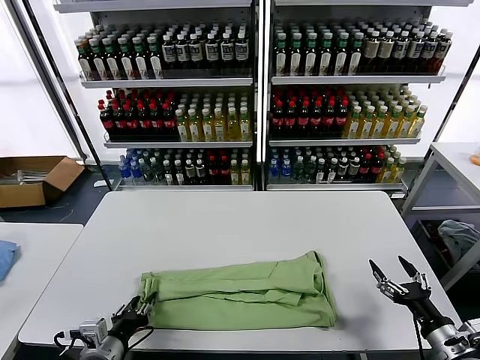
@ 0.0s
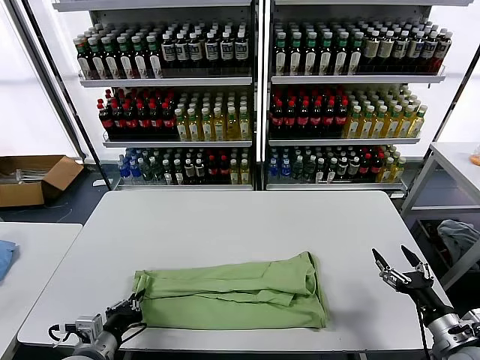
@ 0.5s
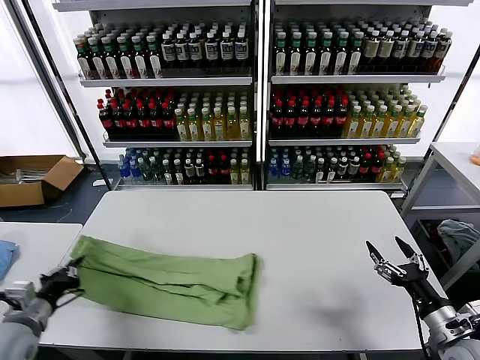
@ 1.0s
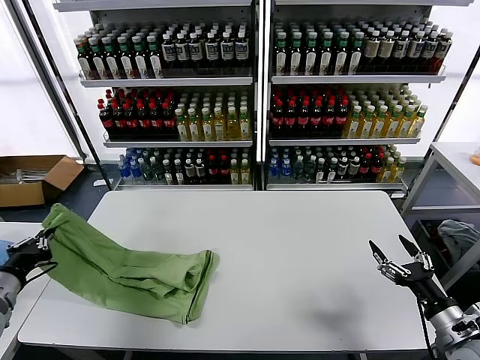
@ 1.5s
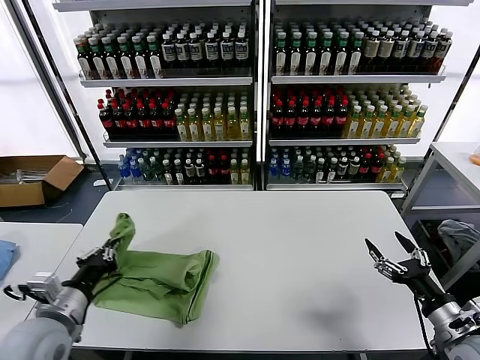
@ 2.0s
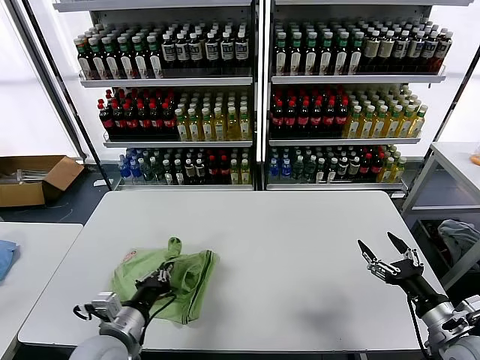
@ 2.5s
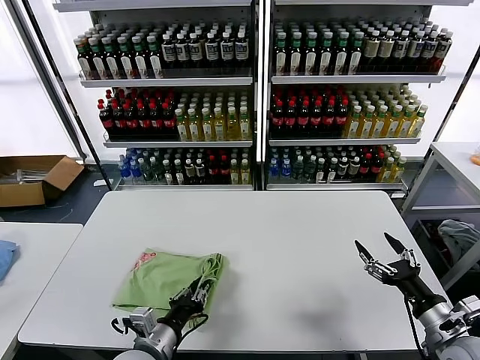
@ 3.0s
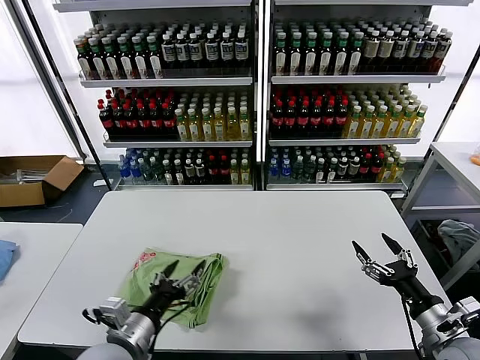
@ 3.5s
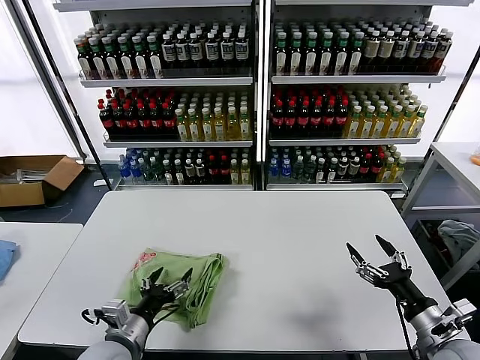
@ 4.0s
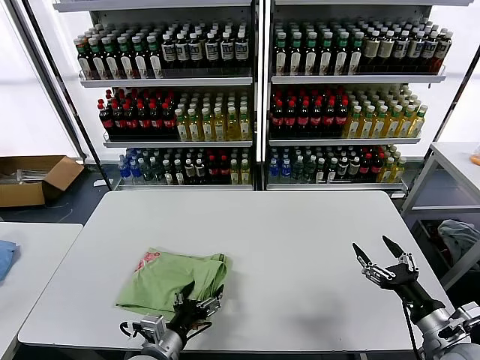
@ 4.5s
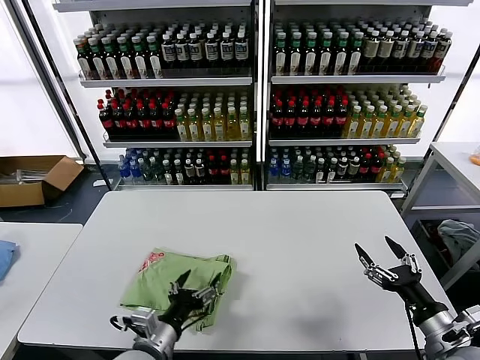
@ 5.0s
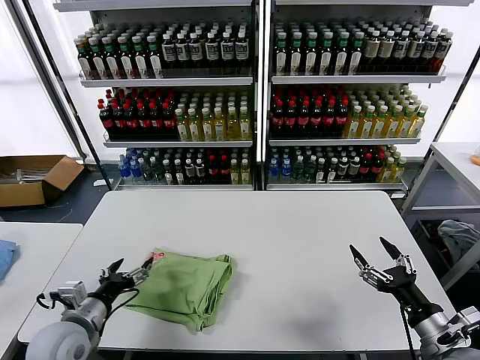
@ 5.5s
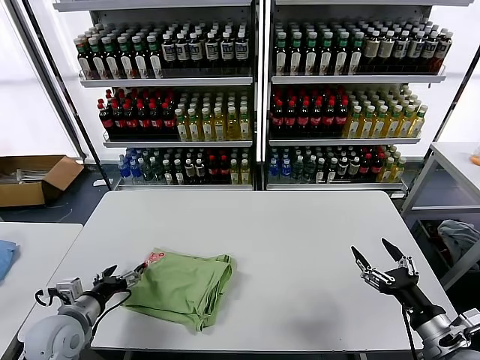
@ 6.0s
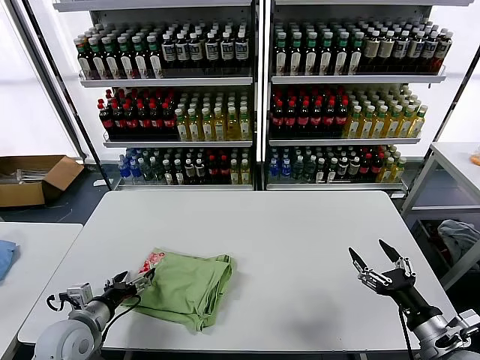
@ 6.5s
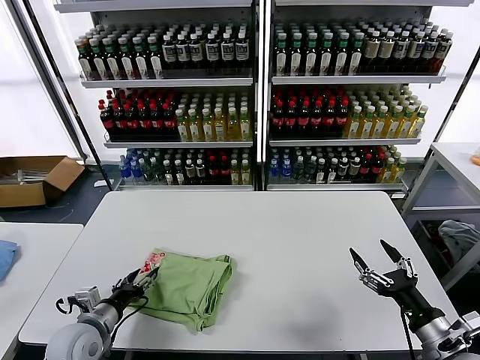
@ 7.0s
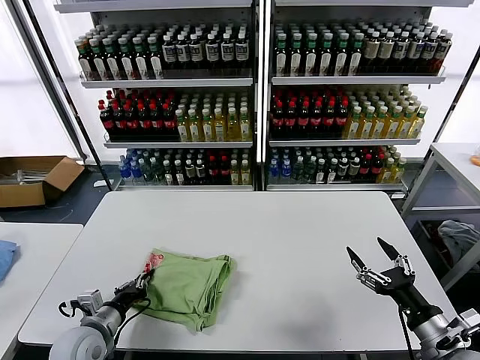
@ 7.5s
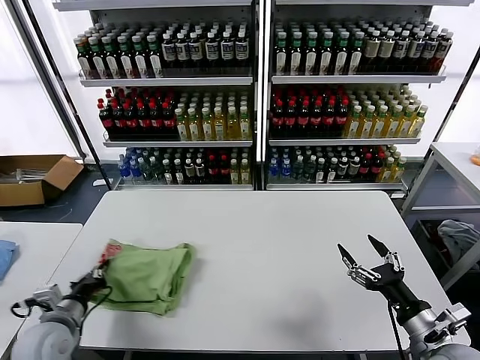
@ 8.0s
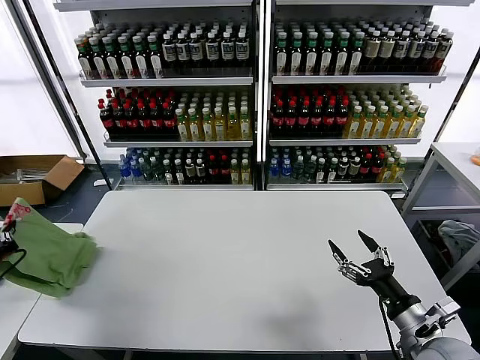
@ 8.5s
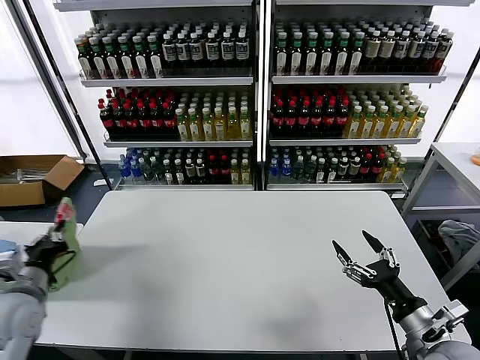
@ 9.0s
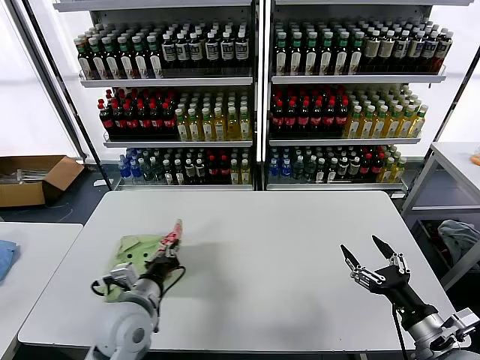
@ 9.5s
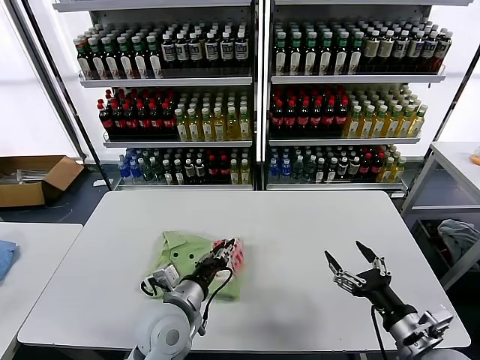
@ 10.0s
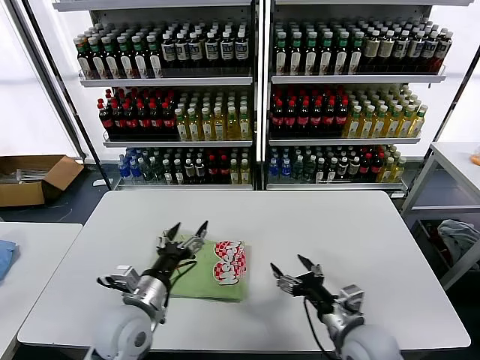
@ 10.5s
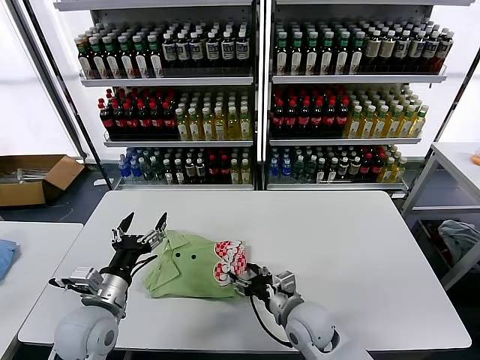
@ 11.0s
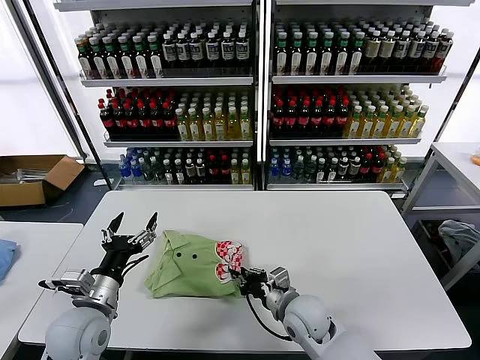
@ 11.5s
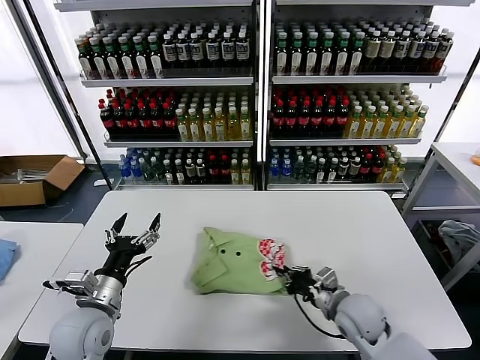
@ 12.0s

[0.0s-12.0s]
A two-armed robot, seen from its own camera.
Task of the whole recording: fold and organize the clothes.
Step, 0.5s to 3.0s: use the left gripper to drag the left edge of the fabric to the left and folds it over the right edge.
Step, 3.5s to 10.0s: Flip the folded clothes over with left gripper.
0.0s to 2.0s: The left gripper is displaced upward by some 10 cm, travels to the left and back again, about 15 cm each way, and closes its fingers; the right gripper moves some 5 cm.
2.0s to 4.0s: The left gripper heads to the right and downward, covering some 10 cm, and opens up.
4.0s to 6.0s: The left gripper shifts approximately 10 cm to the left.
6.0s to 8.0s: The left gripper closes its fingers.
8.0s to 10.0s: The left gripper is displaced to the right by some 25 cm.
10.0s to 12.0s: The right gripper travels forward, to the left and downward by about 20 cm, and closes its fingers. Meanwhile the left gripper goes roughly 15 cm to the left, and opens up.

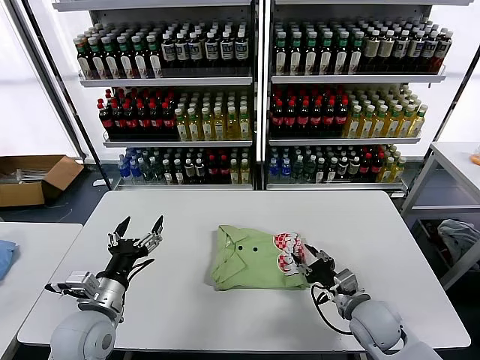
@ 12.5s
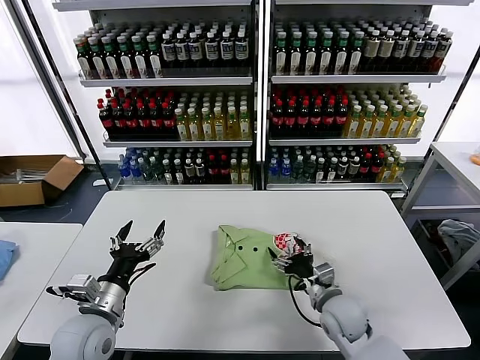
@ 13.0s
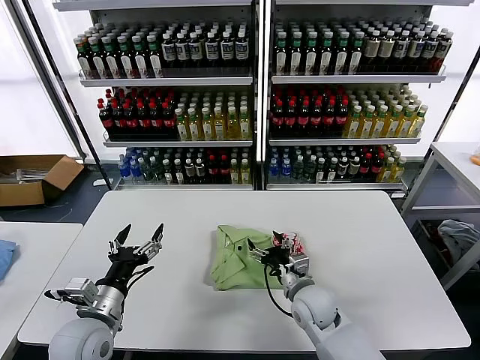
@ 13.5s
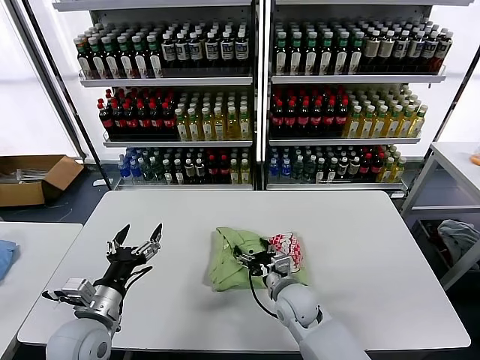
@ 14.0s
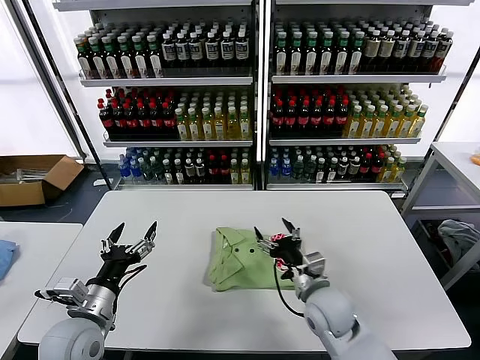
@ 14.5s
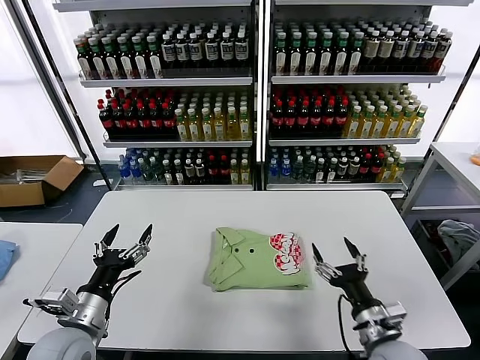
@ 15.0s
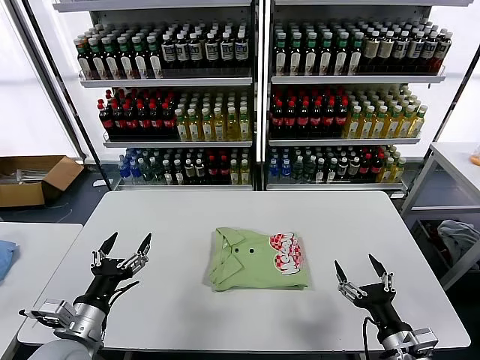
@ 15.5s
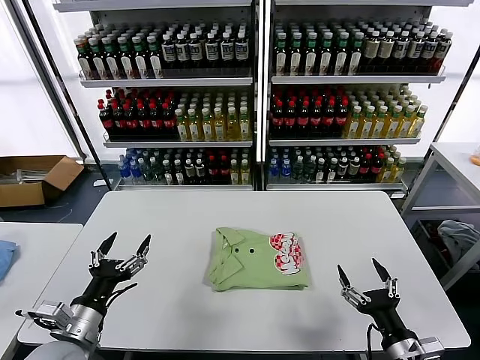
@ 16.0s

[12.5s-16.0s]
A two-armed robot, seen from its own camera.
Task of the whole recording: fold and organize the clothes.
12.5s to 14.5s: The right gripper moves to the left, roughly 10 cm, and opens up.
14.5s to 16.0s: The right gripper moves backward and to the right, some 25 cm.

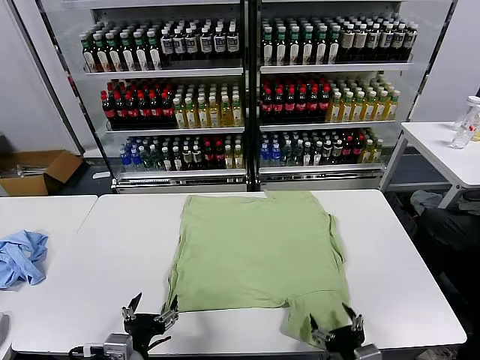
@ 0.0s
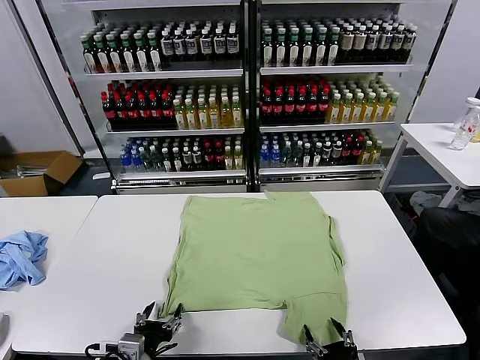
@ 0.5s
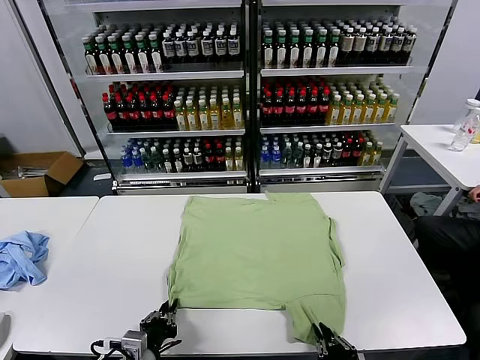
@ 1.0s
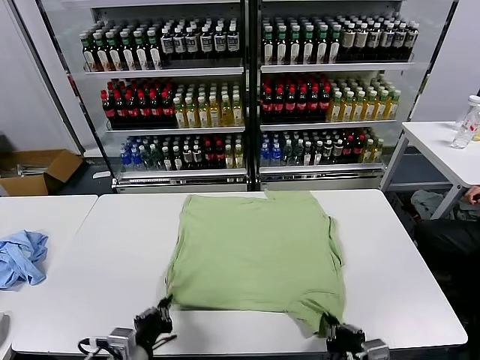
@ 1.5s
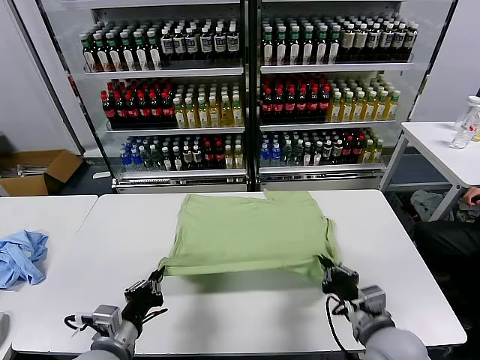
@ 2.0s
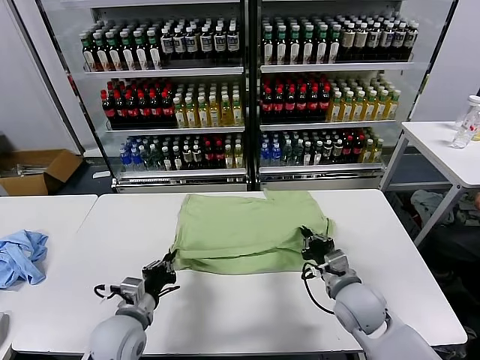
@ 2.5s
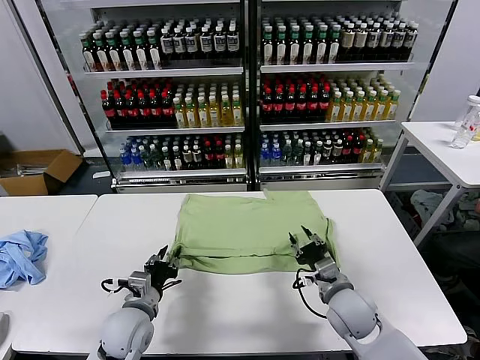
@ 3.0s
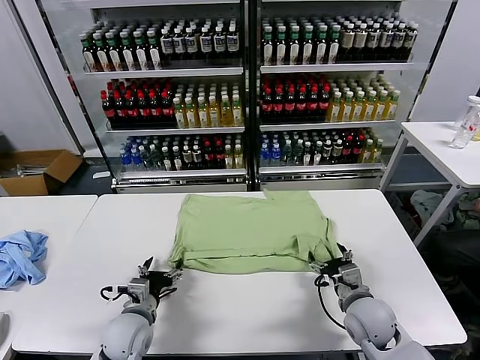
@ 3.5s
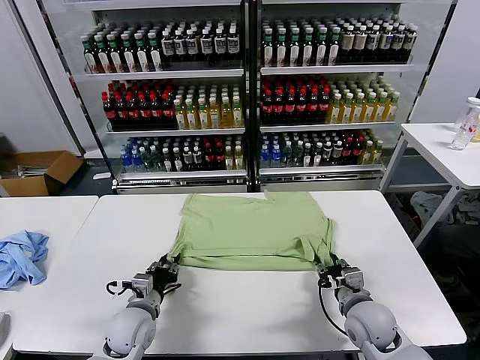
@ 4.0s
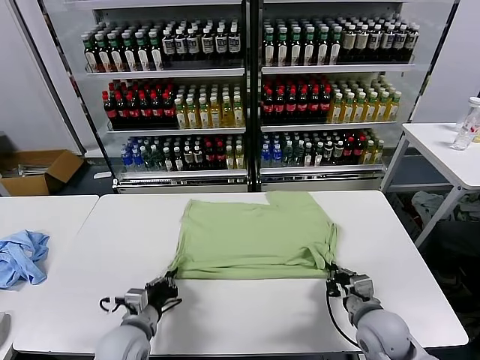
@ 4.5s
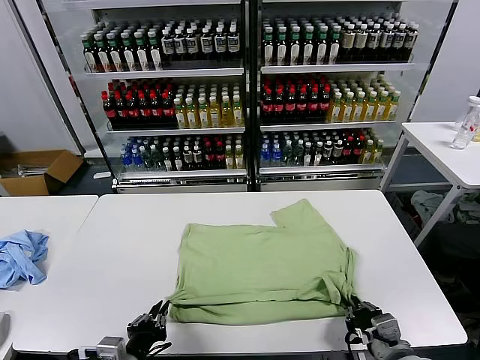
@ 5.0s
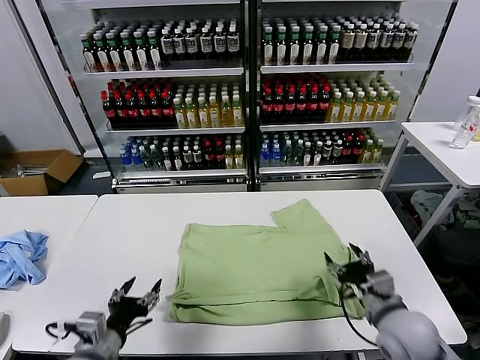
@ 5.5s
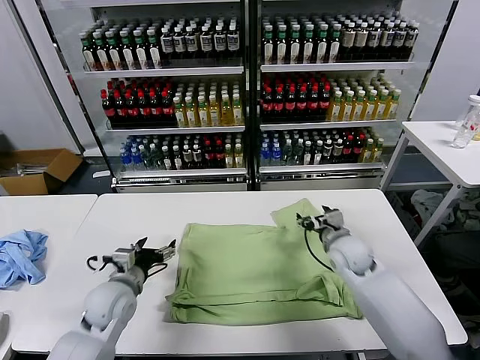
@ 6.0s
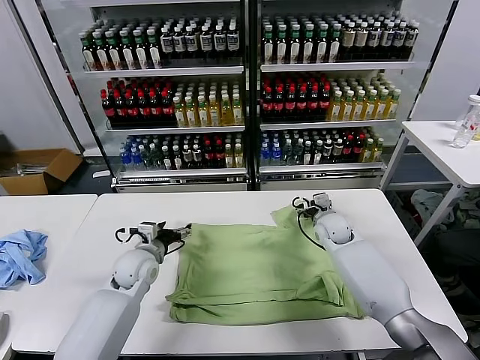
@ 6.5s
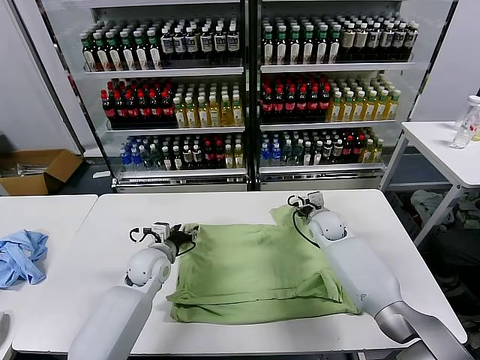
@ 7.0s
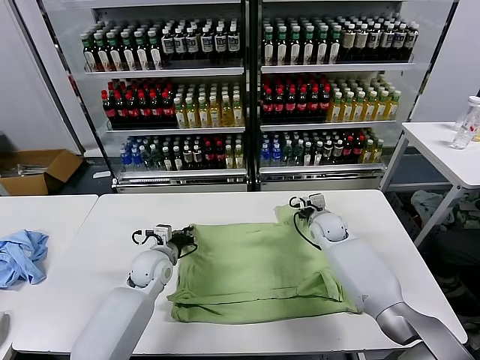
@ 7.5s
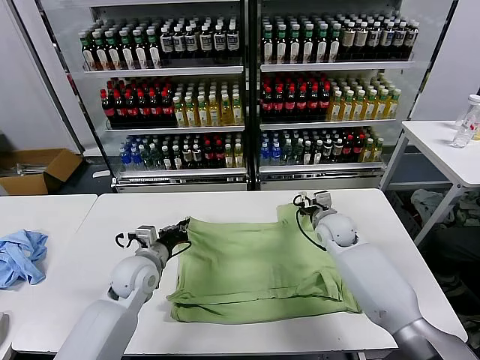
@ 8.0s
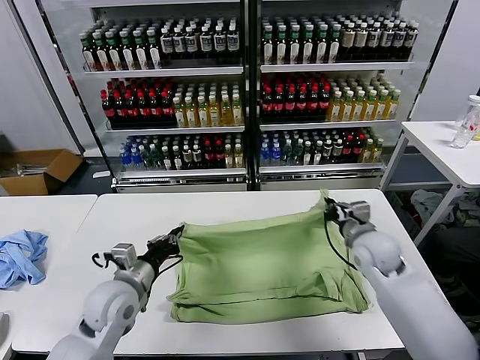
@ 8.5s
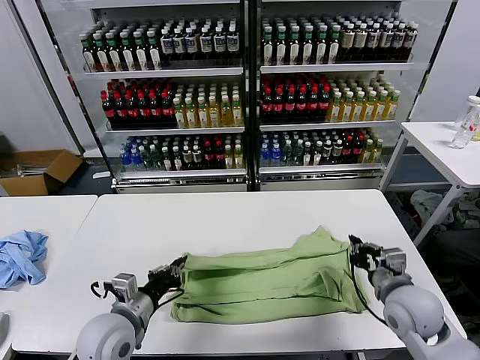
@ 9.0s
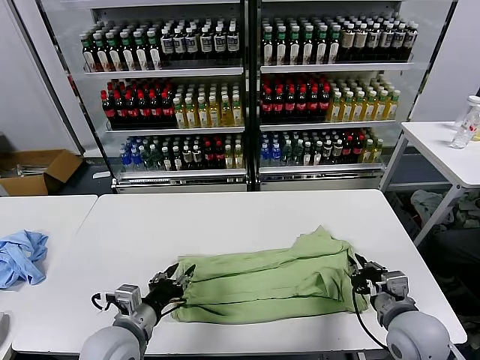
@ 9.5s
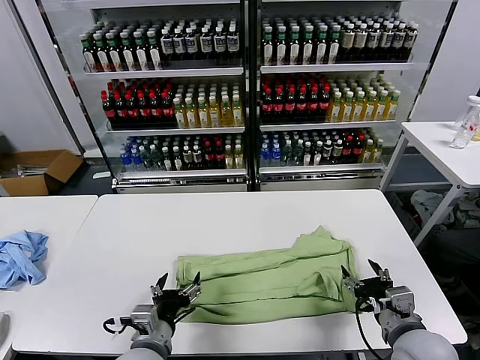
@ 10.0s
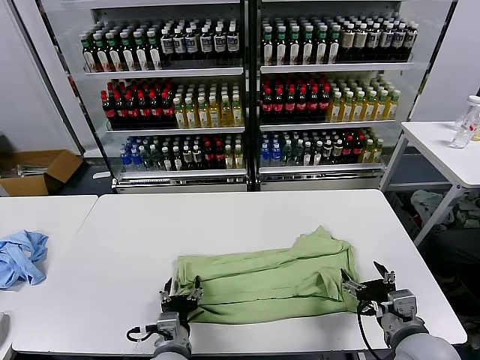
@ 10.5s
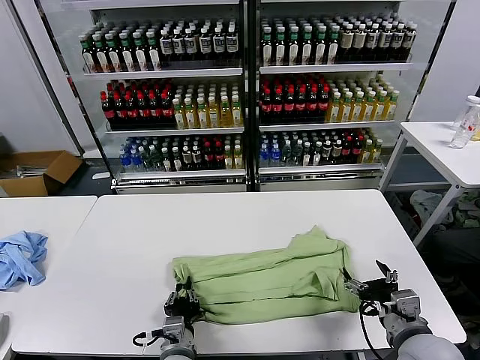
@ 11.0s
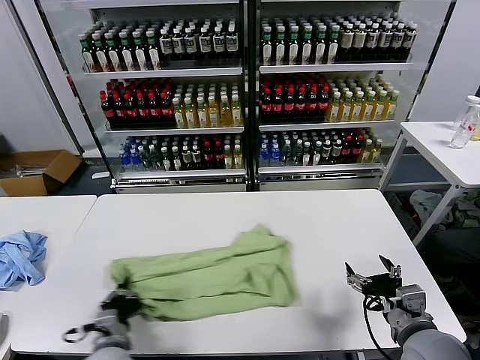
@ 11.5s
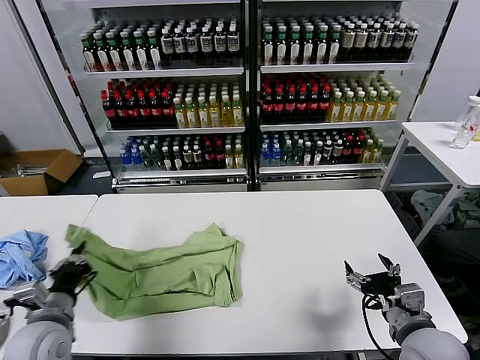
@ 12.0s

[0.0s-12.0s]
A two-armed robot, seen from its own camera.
Task of the whole recording: fold and organize the clothes.
Step, 0.0s to 1.0s: use both grippers simultaneously to clamp the lower edge of the clothing fabric.
Step, 1.5s to 3.0s: use both grippers to drag the lower edge of the fabric forward and fold it over the upper edge.
Step, 3.5s to 5.0s: Drag the clothes downward with both gripper.
Step, 5.5s to 7.5s: use both grippers simultaneously to clamp the upper edge of the clothing fabric.
Step, 8.0s to 9.0s: use both grippers to drag the upper edge of the fabric backward and fold it over the lower edge.
Step, 9.5s to 11.0s: use the left gripper to clamp the left edge of the fabric.
2.0s to 4.0s: The right gripper is displaced downward by some 5 cm, and opens and closes again, while the left gripper shifts about 15 cm forward and downward, and opens its fingers.
4.0s to 6.0s: The right gripper is displaced forward by some 20 cm, and opens its fingers. Meanwhile the left gripper shifts about 5 cm upward, moves some 15 cm backward and comes back, and opens.
6.0s to 8.0s: The left gripper travels forward by some 5 cm, and closes. The right gripper closes its fingers.
8.0s to 10.0s: The grippers both shift backward by roughly 25 cm. The left gripper opens. Meanwhile the right gripper opens its fingers.
10.0s to 12.0s: The left gripper goes about 20 cm to the left, and closes its fingers.
